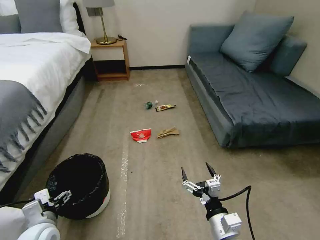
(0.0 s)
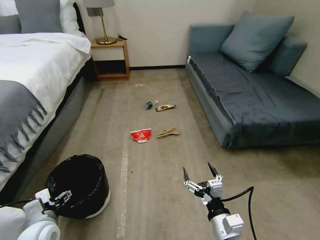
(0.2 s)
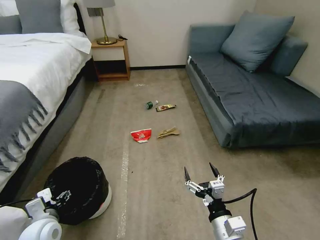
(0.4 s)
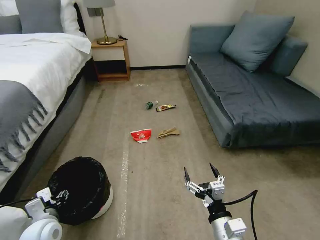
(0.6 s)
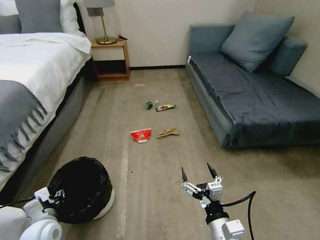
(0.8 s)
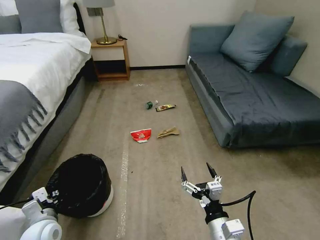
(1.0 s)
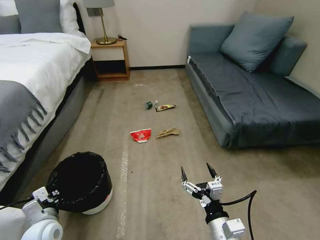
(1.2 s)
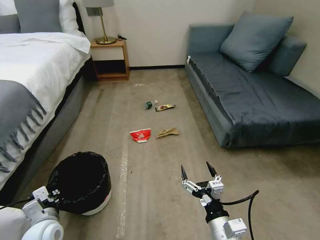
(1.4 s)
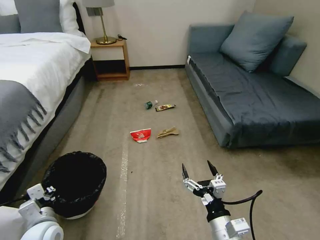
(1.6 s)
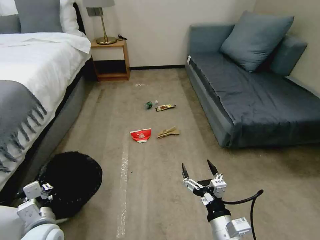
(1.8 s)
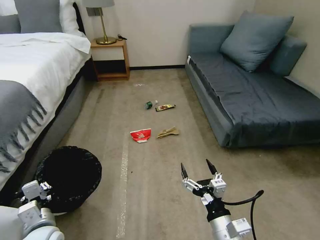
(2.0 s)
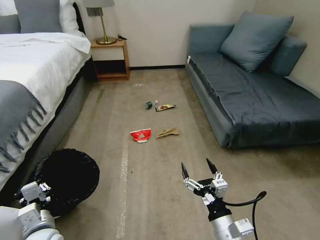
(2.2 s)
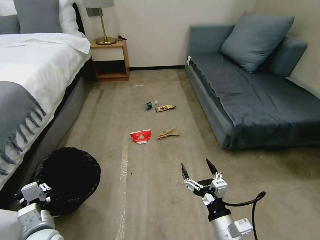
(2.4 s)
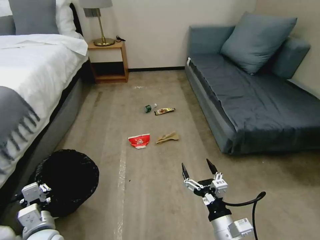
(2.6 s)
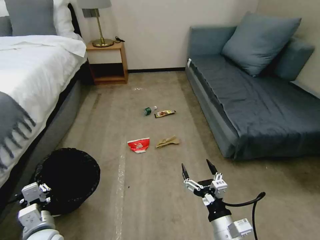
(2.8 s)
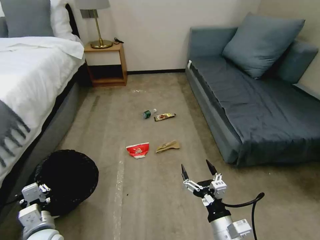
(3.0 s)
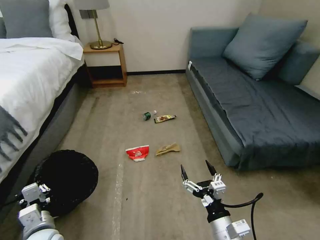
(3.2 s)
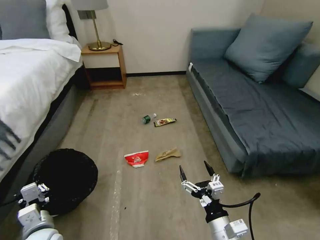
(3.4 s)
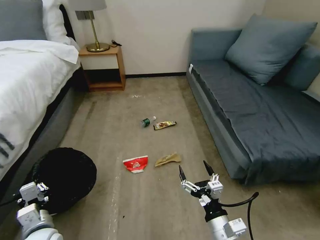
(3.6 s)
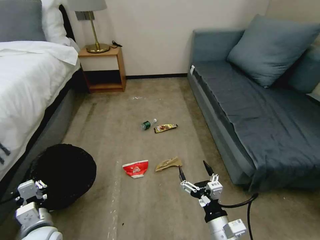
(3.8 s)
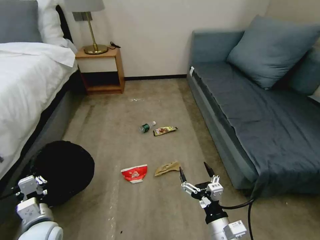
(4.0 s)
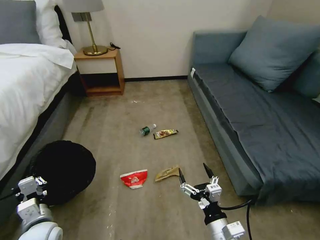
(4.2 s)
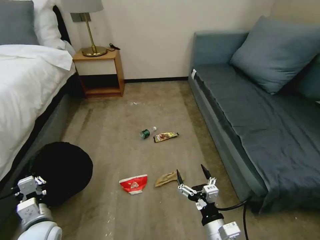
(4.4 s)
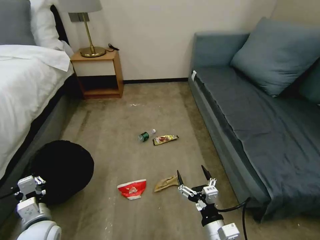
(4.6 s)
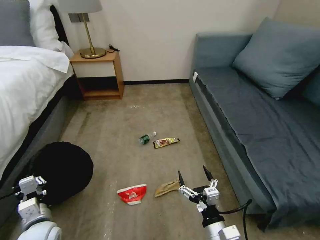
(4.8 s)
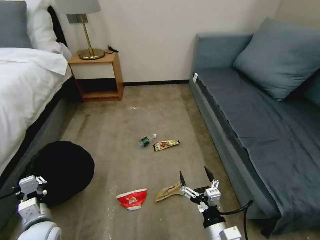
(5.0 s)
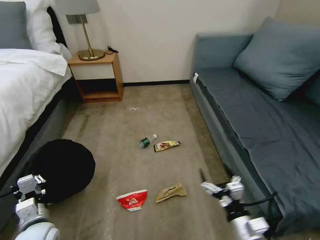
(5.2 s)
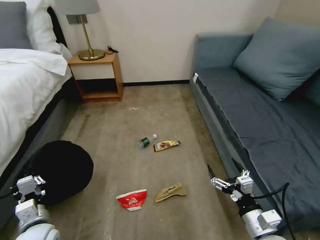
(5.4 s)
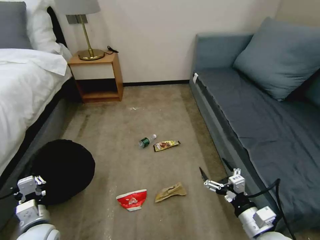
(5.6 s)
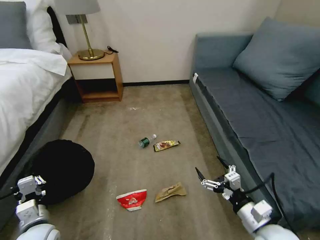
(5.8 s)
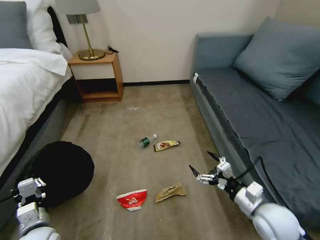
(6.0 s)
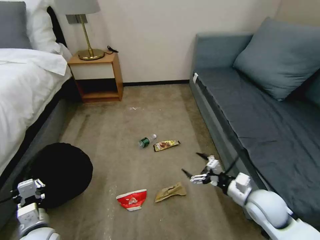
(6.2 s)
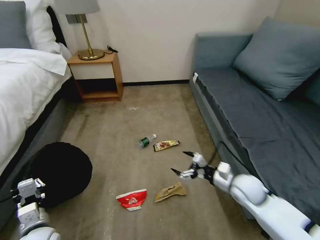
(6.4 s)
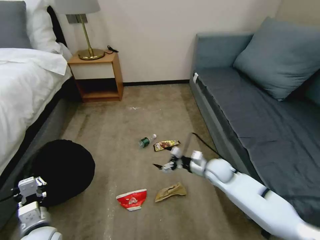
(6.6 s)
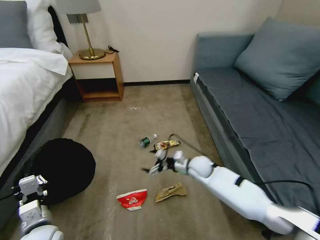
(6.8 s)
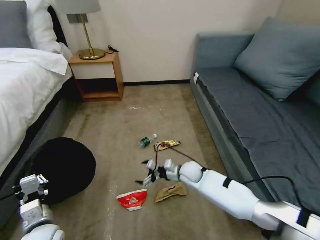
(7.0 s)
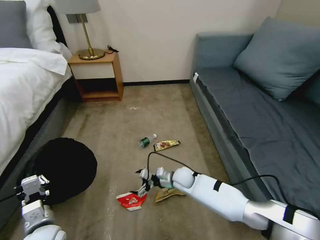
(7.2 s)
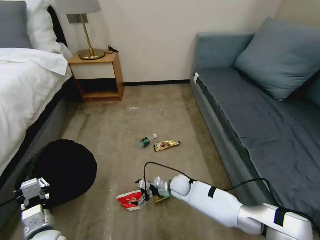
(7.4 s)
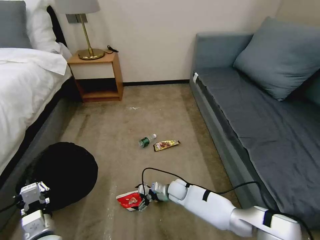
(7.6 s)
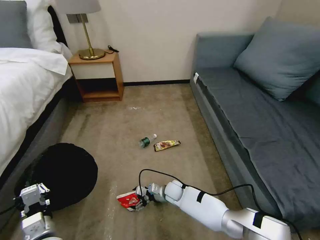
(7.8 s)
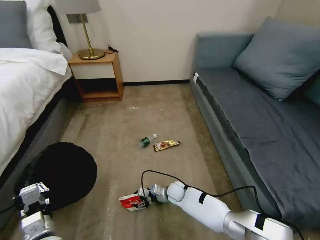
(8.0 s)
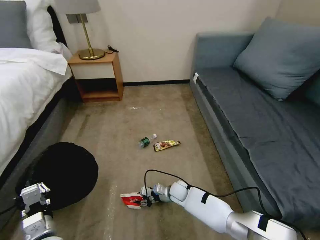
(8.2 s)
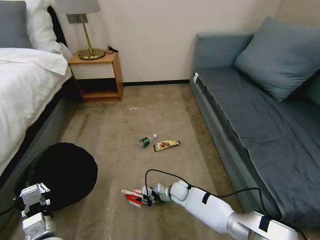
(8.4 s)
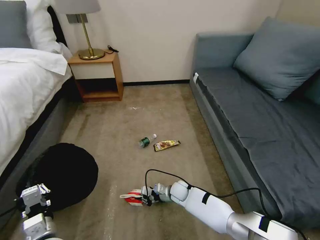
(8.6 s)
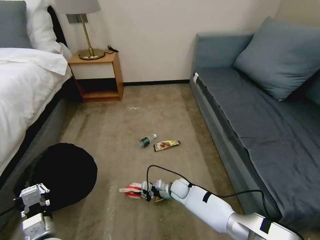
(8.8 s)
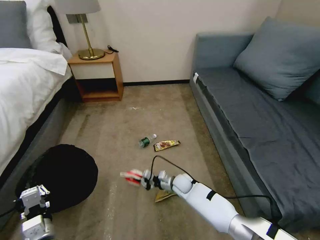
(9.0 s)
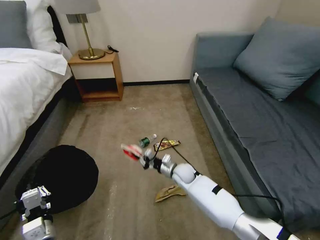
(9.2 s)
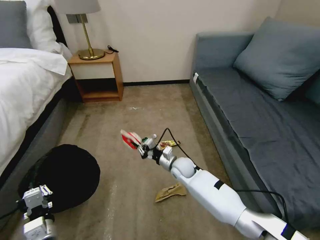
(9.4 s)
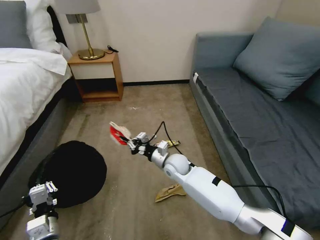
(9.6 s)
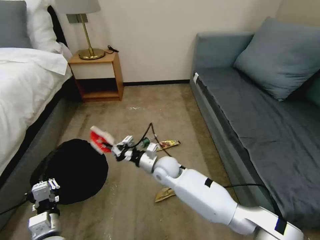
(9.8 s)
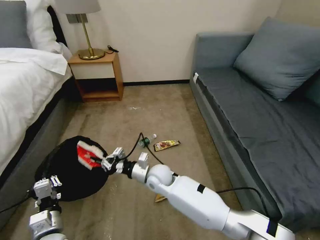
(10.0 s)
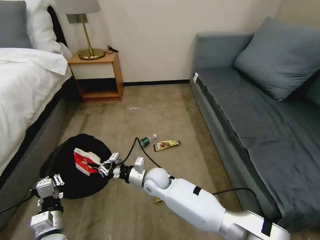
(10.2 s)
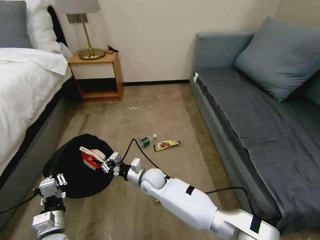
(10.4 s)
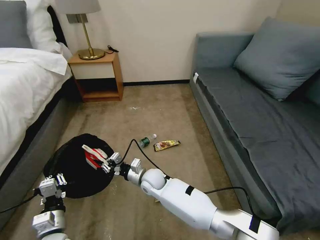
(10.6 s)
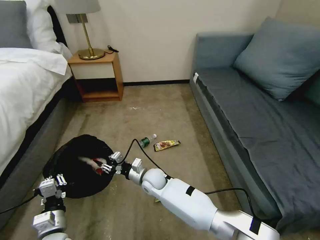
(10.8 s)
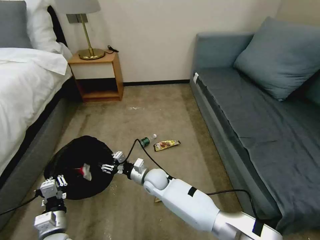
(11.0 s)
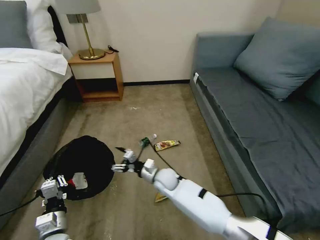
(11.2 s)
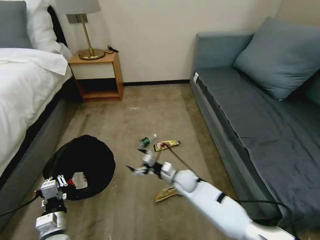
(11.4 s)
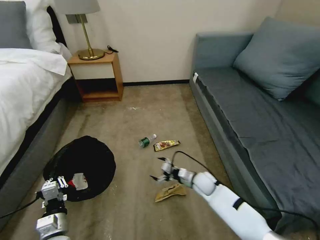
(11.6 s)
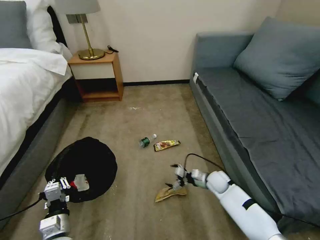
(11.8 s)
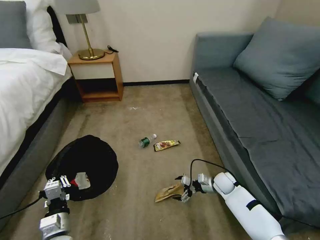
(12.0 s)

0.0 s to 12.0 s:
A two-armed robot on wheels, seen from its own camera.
Task of the whole recording: Pick up the trash bin, then pick up the garbage on the floor and place it into the trash bin.
0.0 to 1.6 s: The left gripper closes its fingers.
4.4 to 6.0 s: The right gripper is displaced to the right and forward by roughly 15 cm.
6.0 to 7.6 s: The right gripper travels to the left, downward and forward by about 35 cm.
7.6 to 9.0 s: The right gripper closes its fingers.
9.0 to 10.4 s: The right gripper moves to the left and upward, approximately 15 cm.
10.4 to 12.0 s: The right gripper is displaced to the right by approximately 30 cm, and opens its fingers.

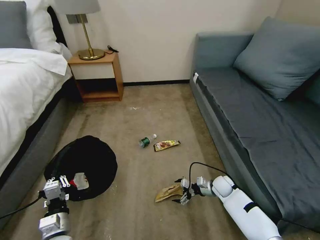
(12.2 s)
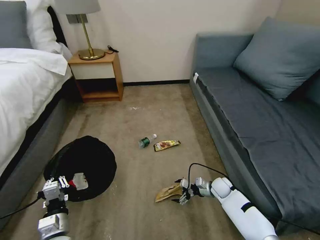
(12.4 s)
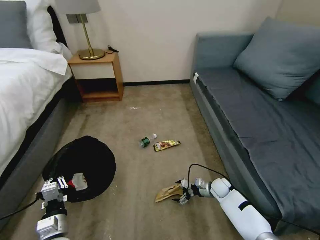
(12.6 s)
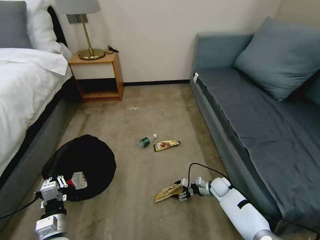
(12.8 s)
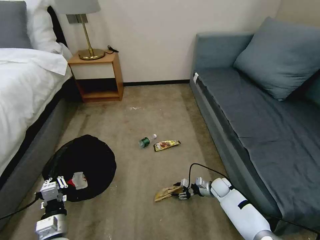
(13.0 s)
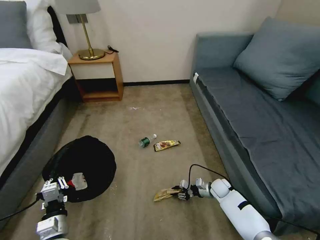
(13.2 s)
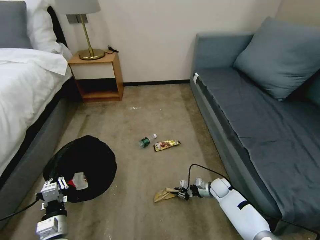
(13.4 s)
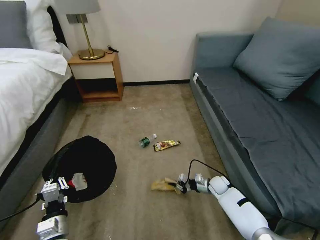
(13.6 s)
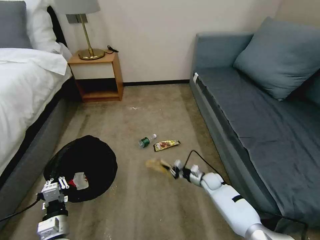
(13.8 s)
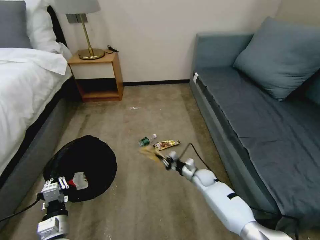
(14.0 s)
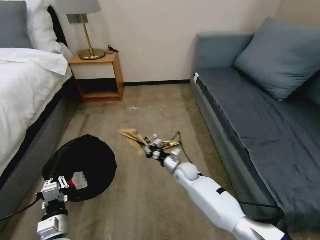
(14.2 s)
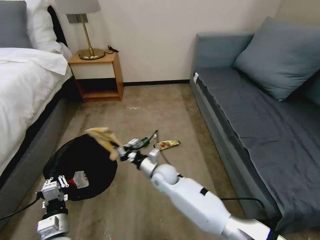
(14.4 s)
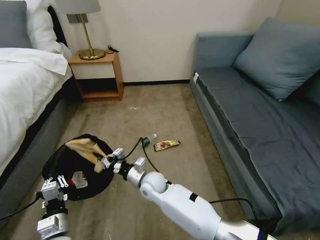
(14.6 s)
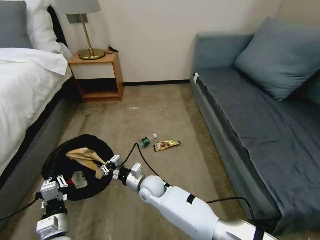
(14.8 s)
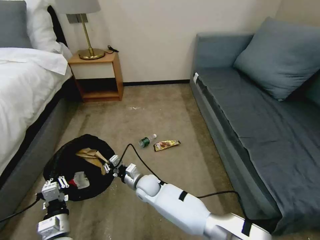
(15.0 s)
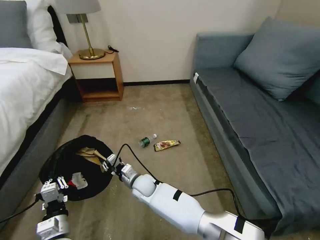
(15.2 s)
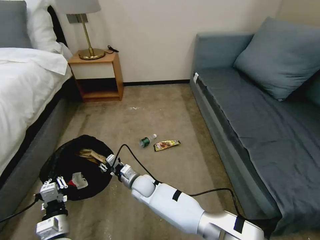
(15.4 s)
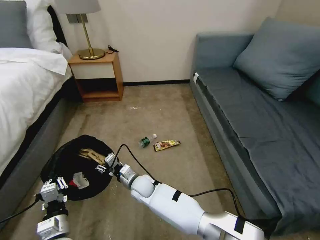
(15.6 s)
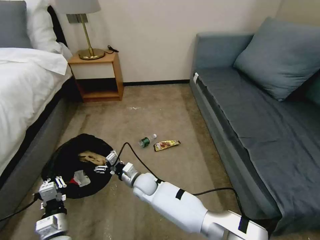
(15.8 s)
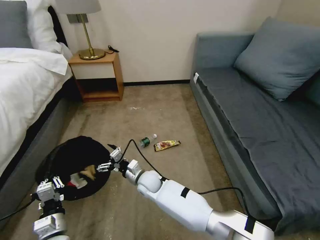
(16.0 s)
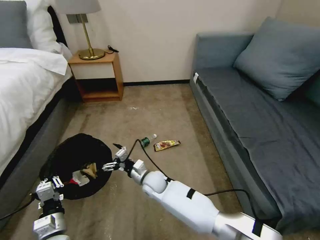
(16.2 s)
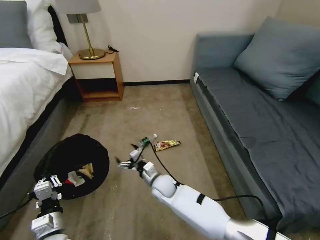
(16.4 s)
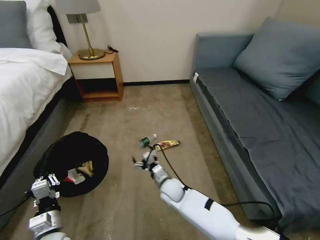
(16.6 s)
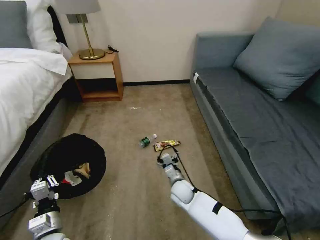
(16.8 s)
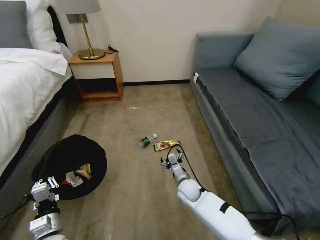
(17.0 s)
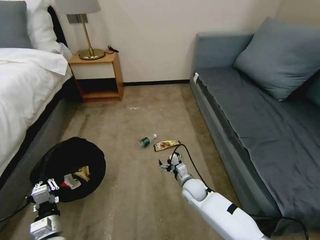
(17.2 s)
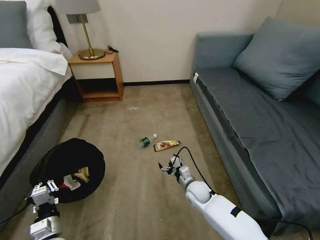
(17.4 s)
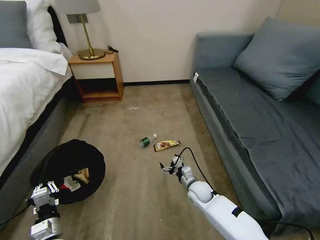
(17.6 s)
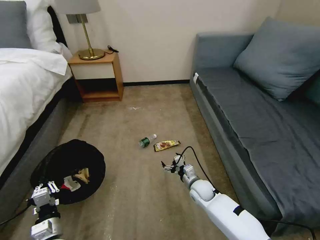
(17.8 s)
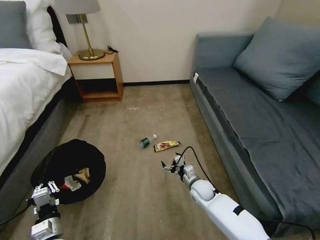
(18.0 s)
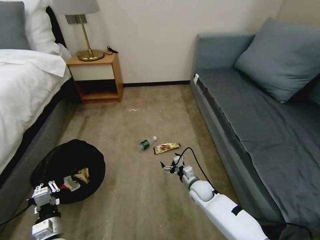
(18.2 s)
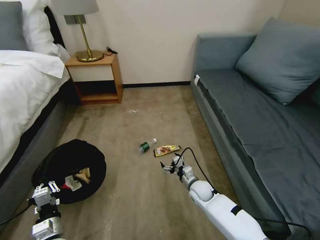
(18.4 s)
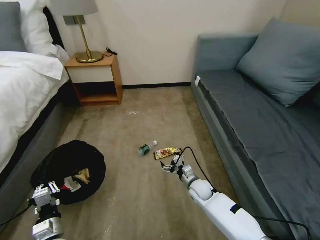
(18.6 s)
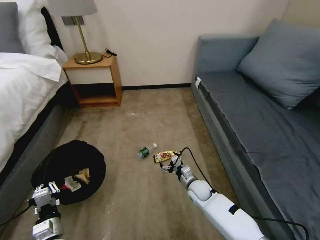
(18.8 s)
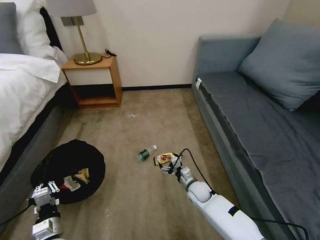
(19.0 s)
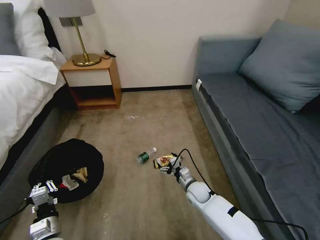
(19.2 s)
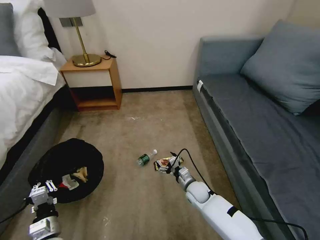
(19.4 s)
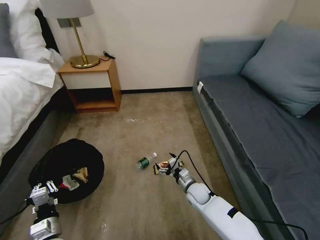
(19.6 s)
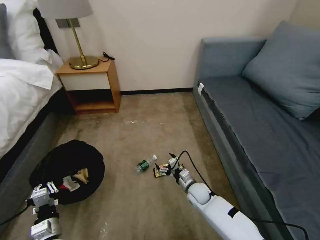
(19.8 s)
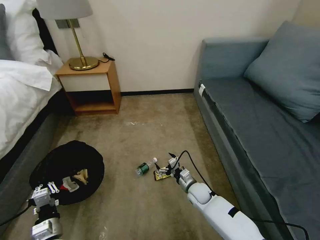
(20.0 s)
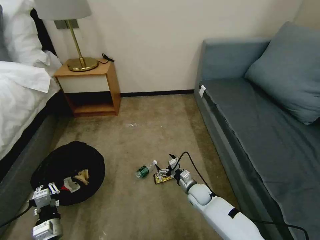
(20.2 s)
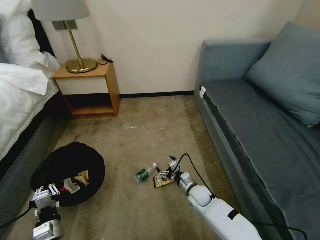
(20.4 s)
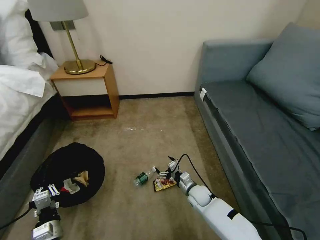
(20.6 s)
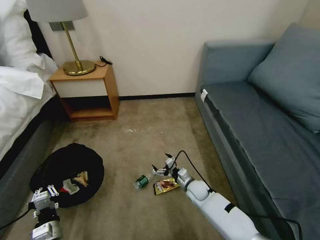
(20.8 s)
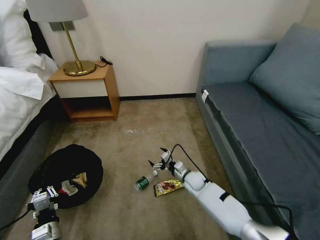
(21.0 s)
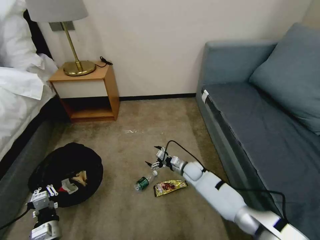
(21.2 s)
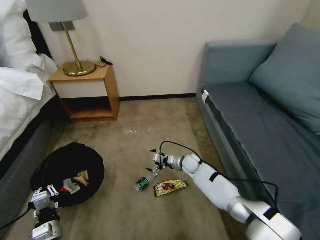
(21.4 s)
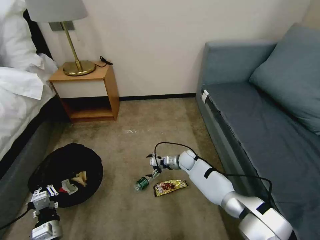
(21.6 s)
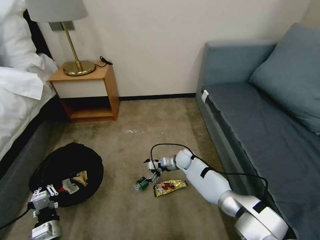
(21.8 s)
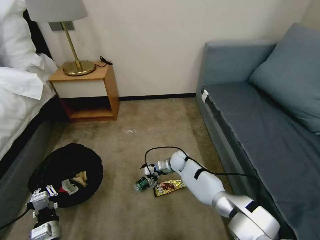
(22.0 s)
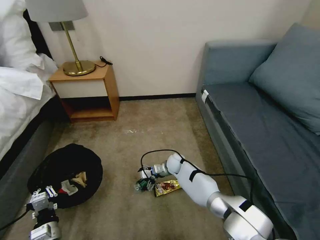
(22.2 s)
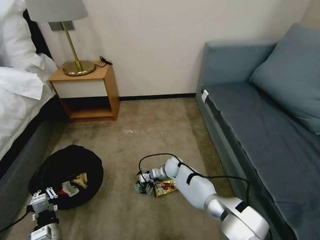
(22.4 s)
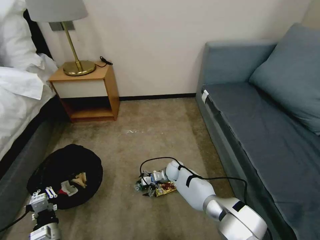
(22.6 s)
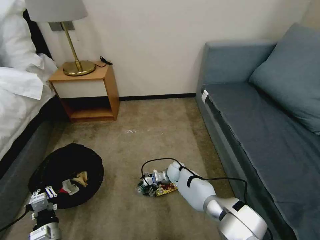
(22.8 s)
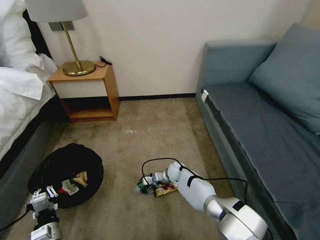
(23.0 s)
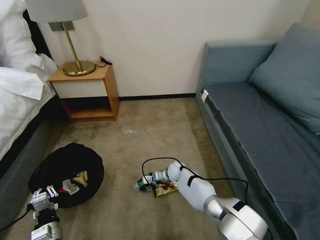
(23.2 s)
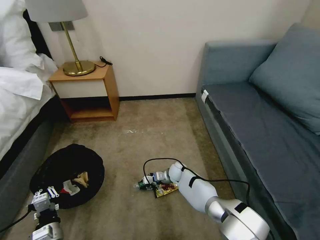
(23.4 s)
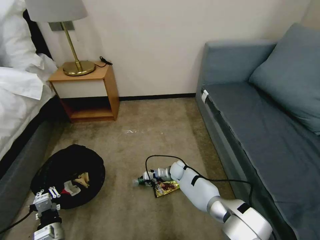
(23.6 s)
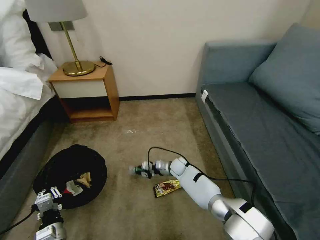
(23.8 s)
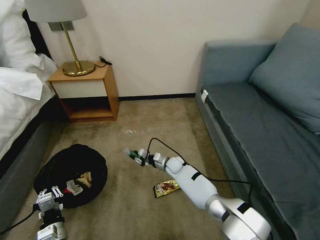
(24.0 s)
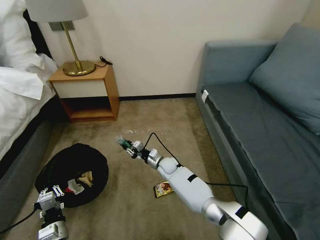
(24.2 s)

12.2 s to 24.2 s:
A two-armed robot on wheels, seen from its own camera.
Task of the whole recording: Pick up the trash bin, then pick up the garbage on the floor and place it into the trash bin.
12.2 to 13.8 s: The right gripper closes its fingers.
13.8 to 15.2 s: The right gripper is displaced to the left by about 35 cm.
15.2 to 16.6 s: The right gripper moves to the right, roughly 10 cm, and opens.
16.6 to 18.2 s: The right gripper is displaced to the right by approximately 15 cm.
19.8 to 21.2 s: The right gripper heads forward, covering some 10 cm.
21.2 to 22.6 s: The right gripper shifts about 10 cm to the left.
22.6 to 24.2 s: The right gripper closes its fingers.
